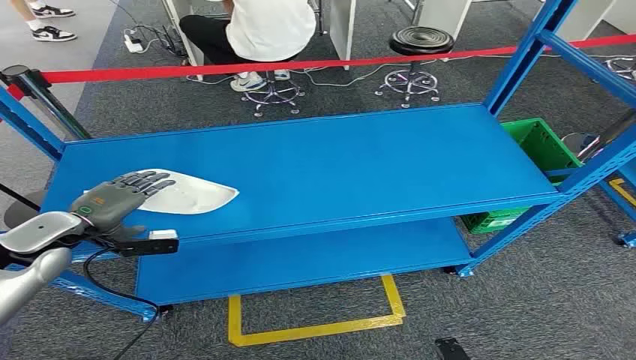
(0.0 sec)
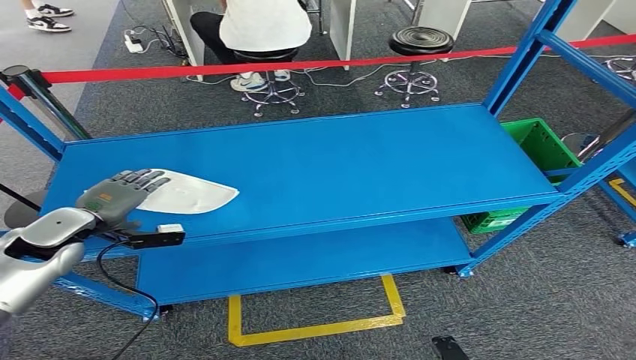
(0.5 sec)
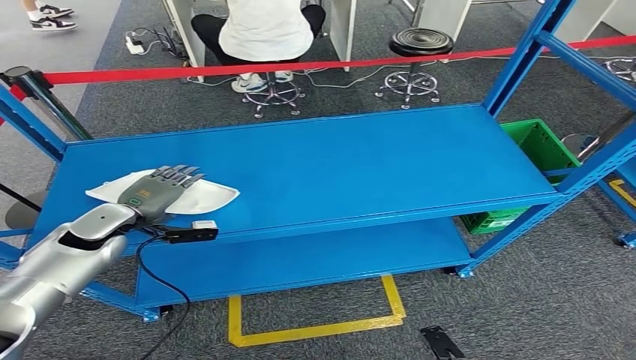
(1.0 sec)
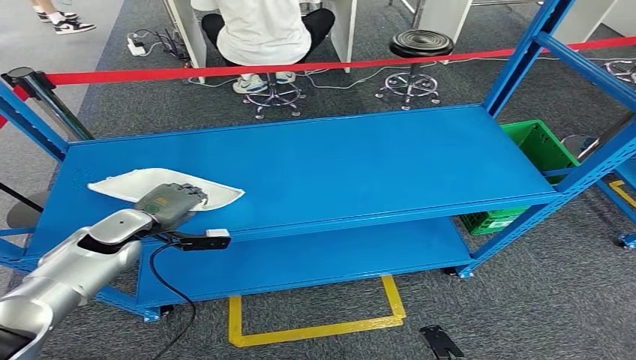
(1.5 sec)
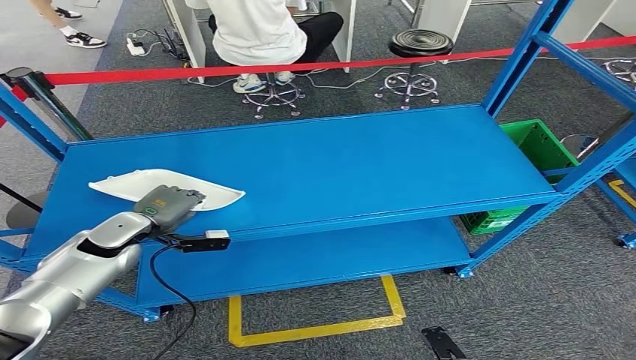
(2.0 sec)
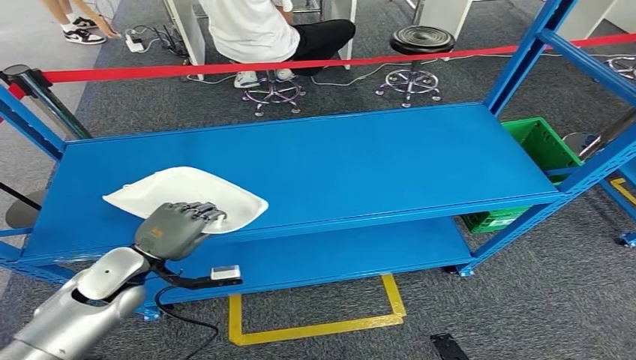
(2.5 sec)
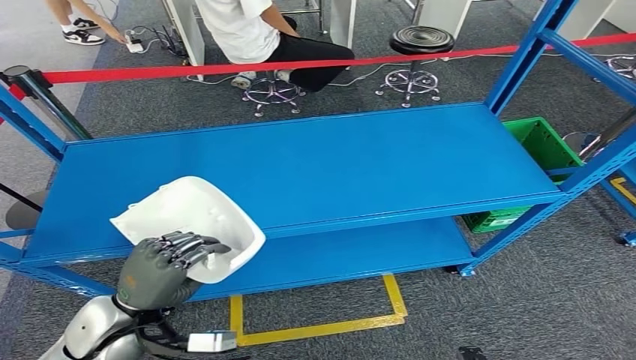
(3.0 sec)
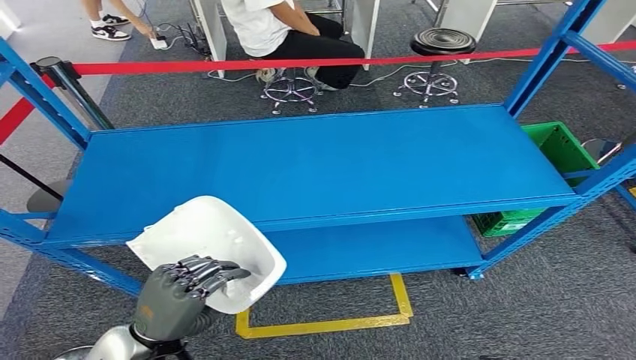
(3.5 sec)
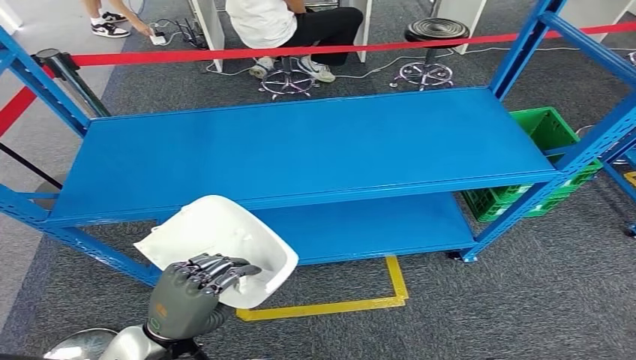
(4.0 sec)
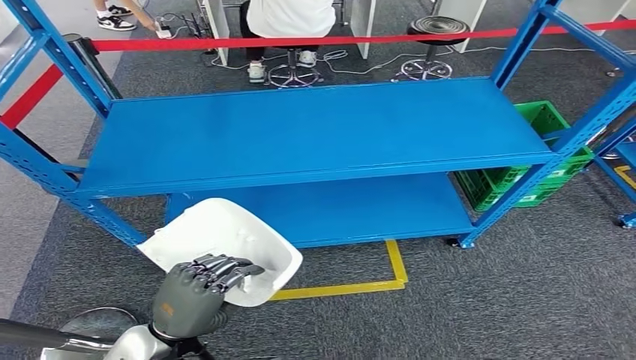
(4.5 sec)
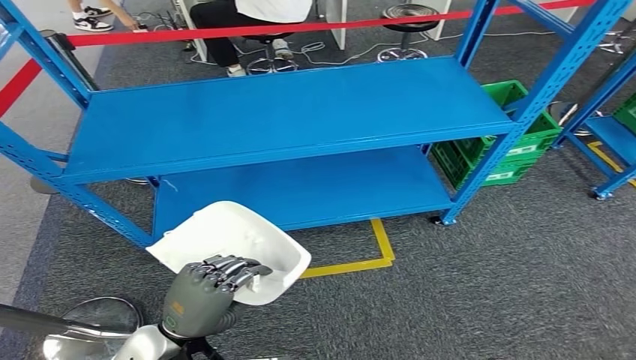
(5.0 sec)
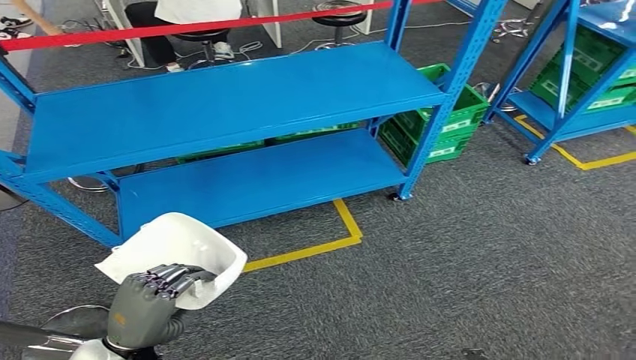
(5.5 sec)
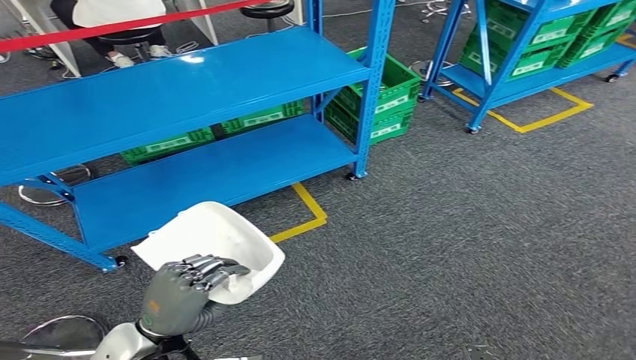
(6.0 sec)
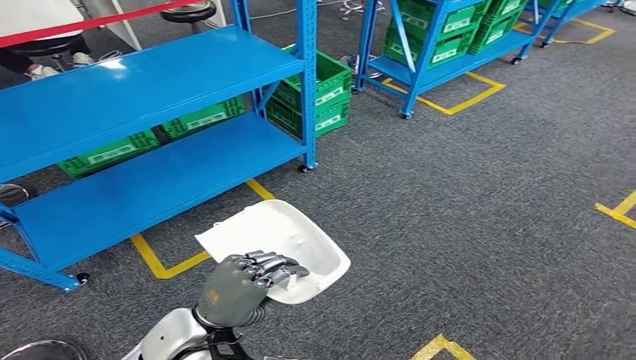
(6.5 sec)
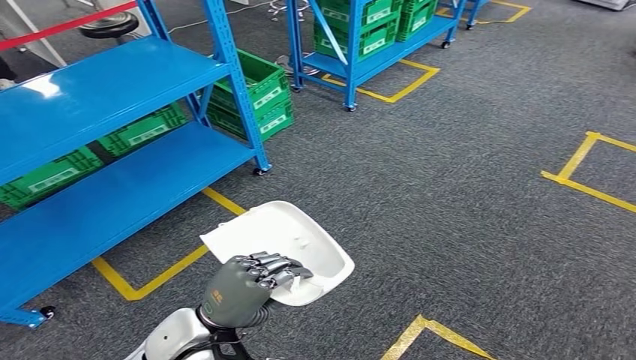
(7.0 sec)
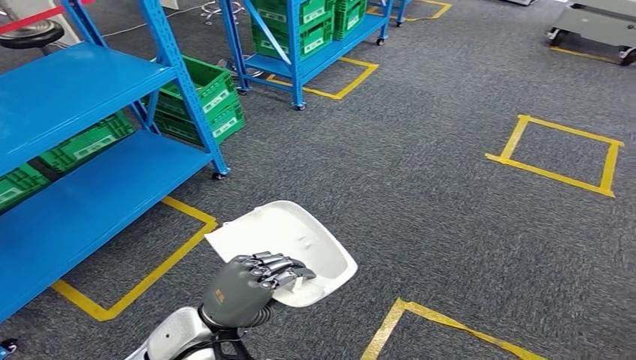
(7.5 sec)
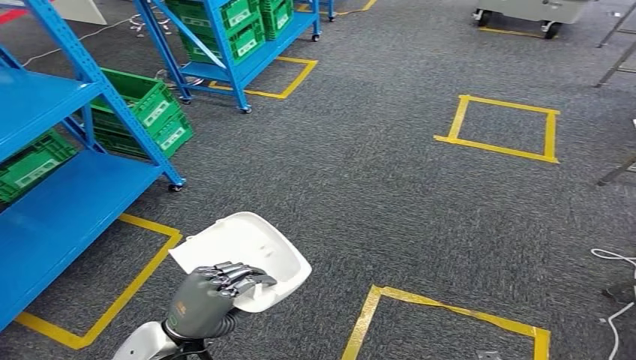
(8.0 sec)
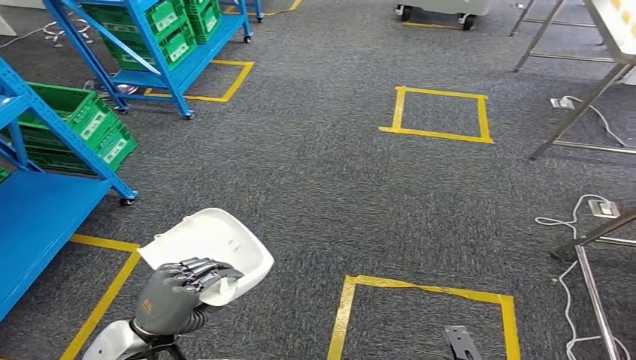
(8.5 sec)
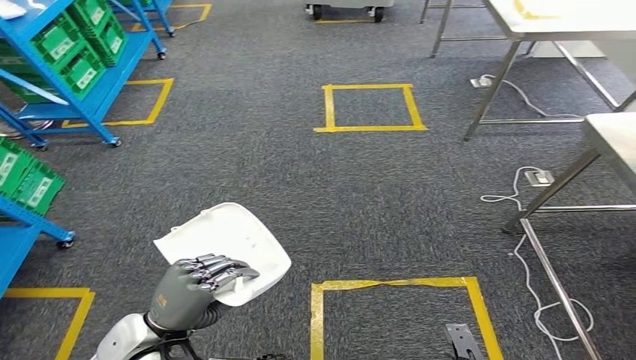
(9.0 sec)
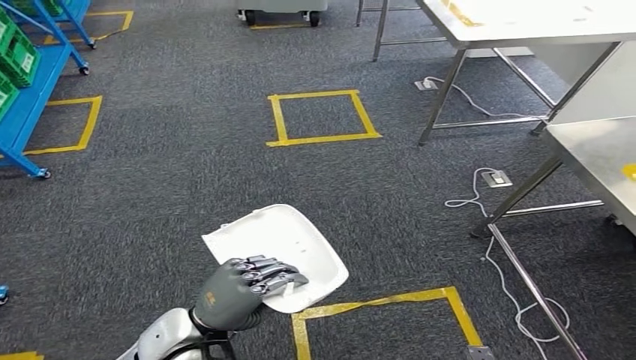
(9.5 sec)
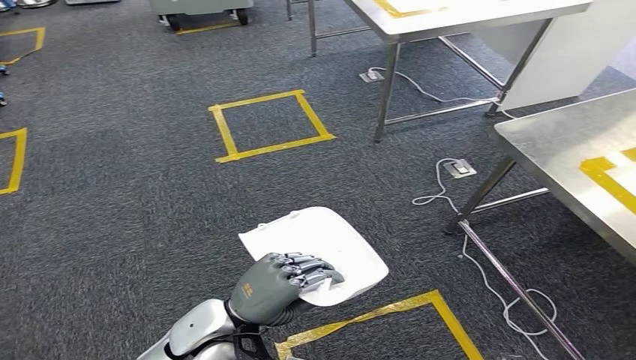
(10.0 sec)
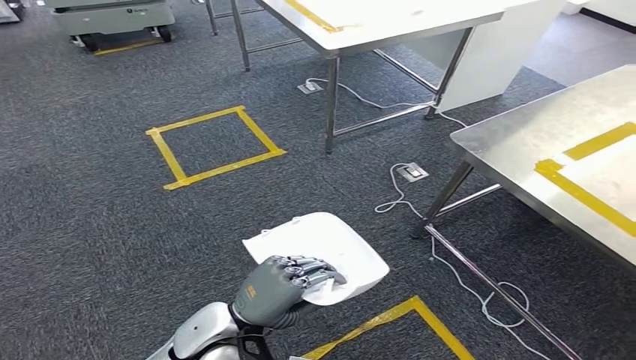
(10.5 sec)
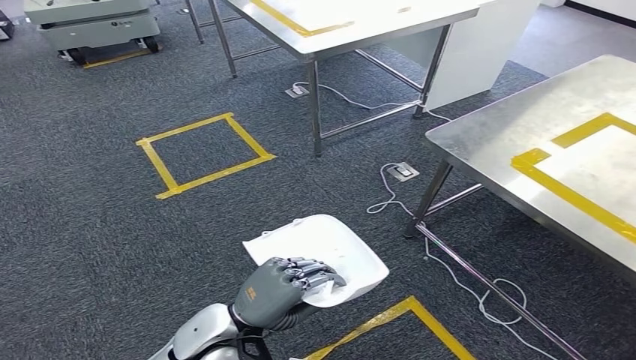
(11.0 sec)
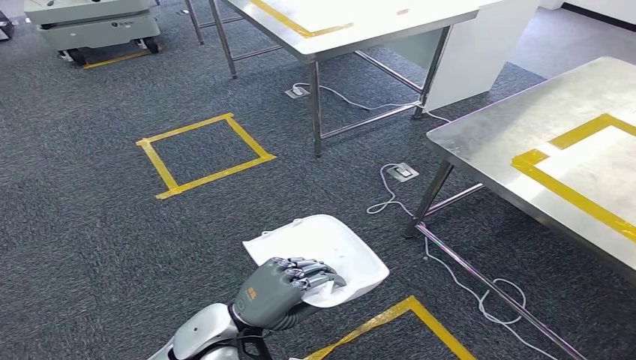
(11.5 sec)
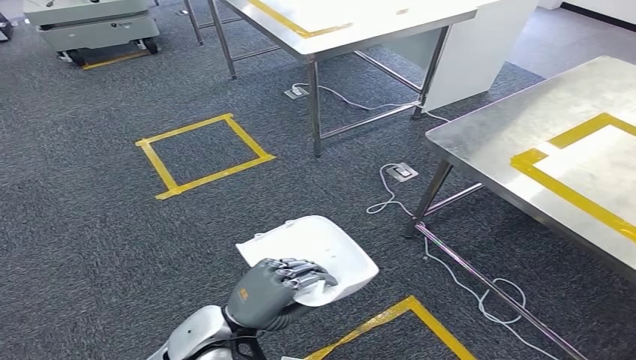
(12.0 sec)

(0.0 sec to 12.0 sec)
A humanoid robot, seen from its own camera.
Step, 0.0 sec - 4.0 sec: Pick up the small parts from the shelf.

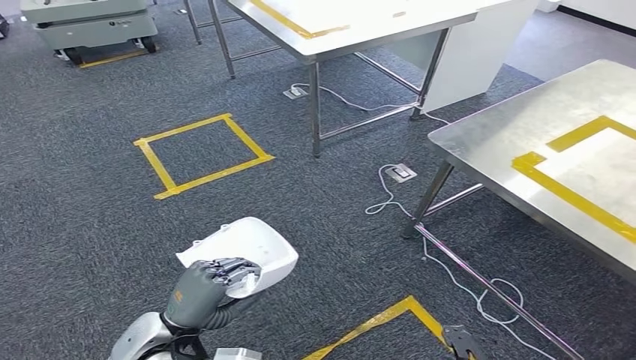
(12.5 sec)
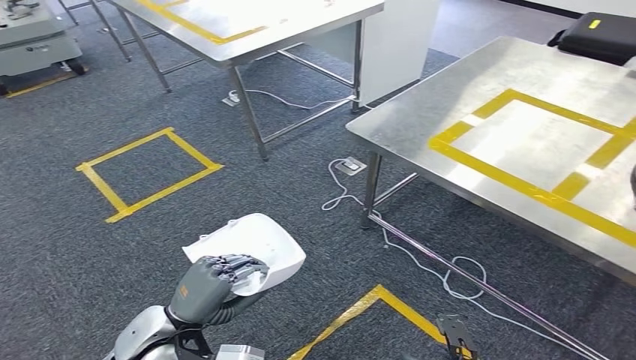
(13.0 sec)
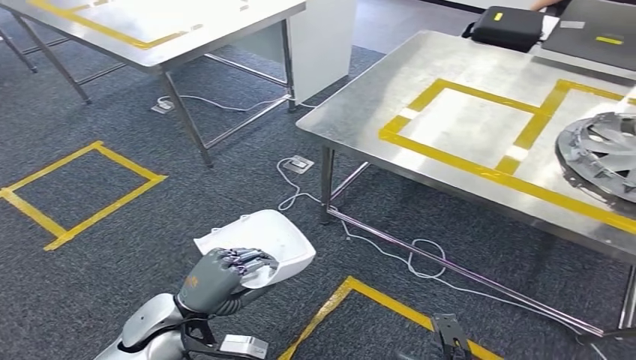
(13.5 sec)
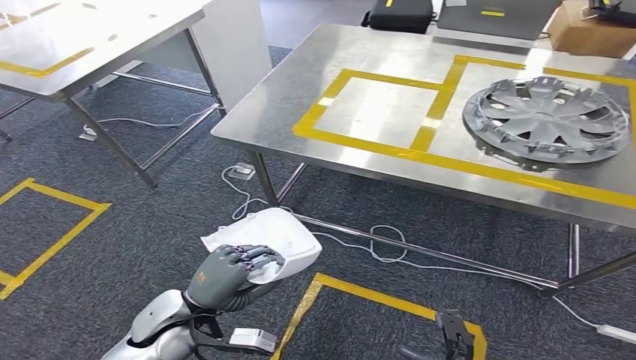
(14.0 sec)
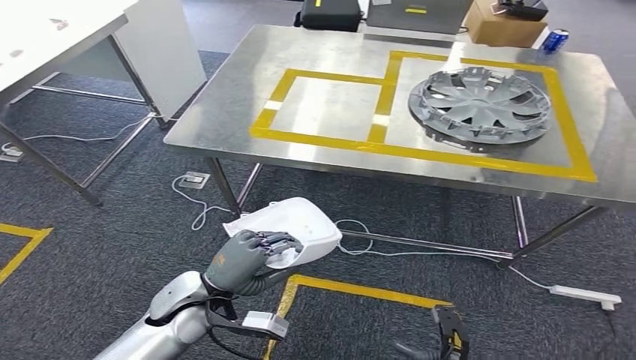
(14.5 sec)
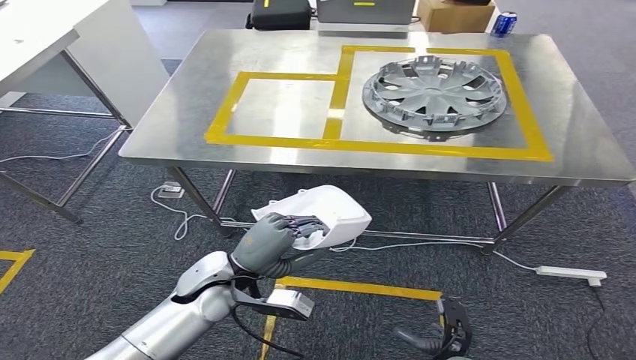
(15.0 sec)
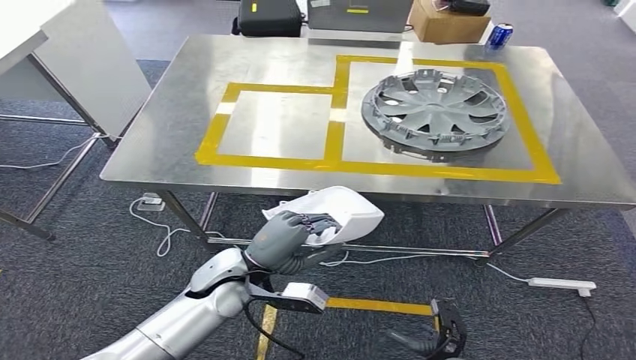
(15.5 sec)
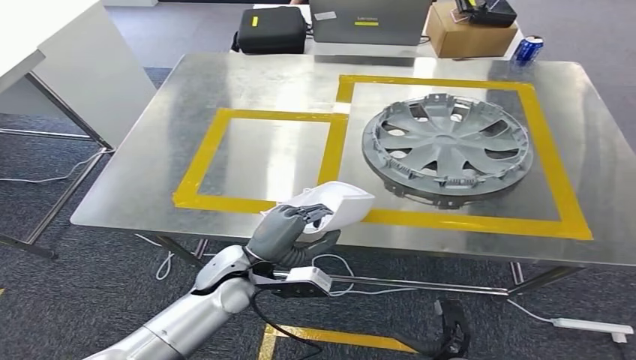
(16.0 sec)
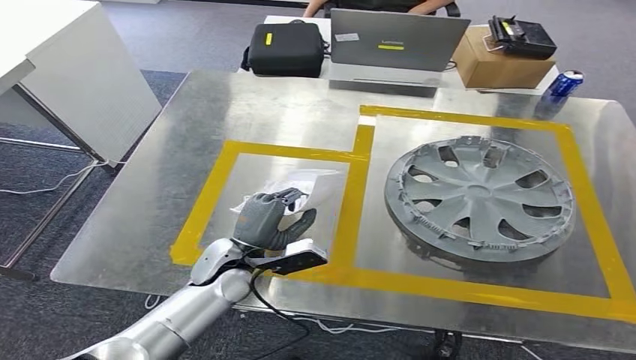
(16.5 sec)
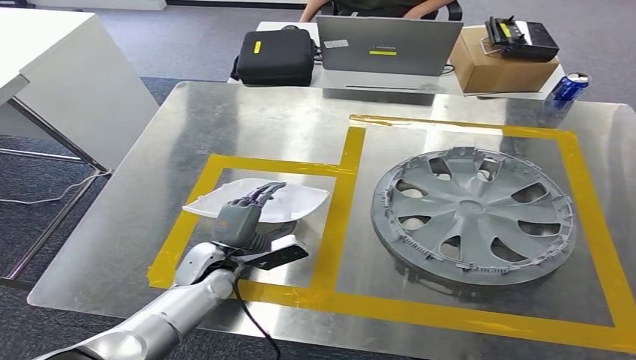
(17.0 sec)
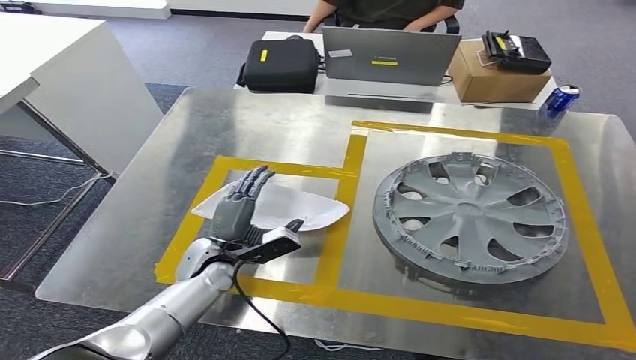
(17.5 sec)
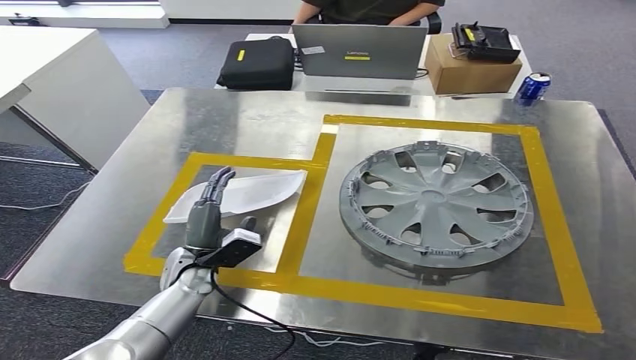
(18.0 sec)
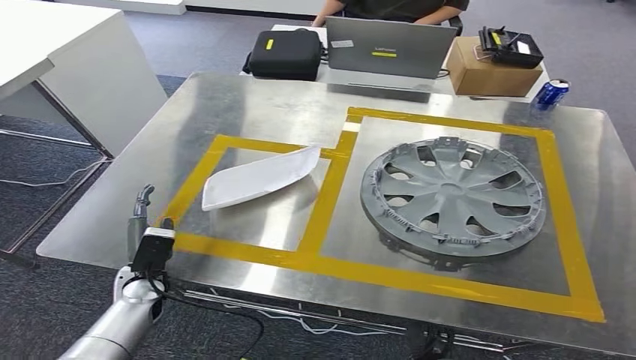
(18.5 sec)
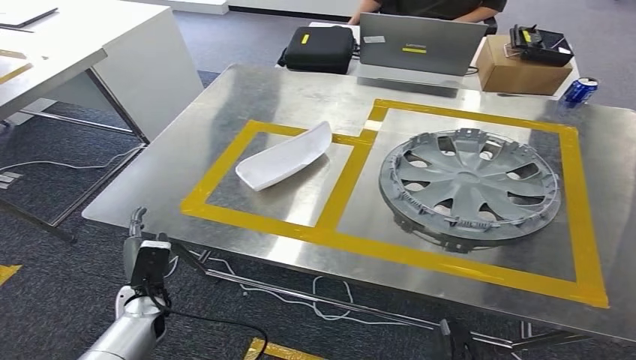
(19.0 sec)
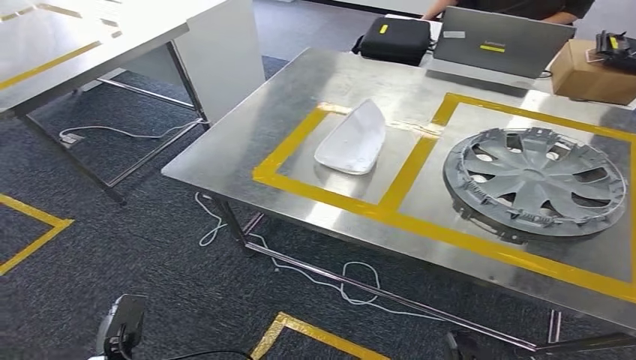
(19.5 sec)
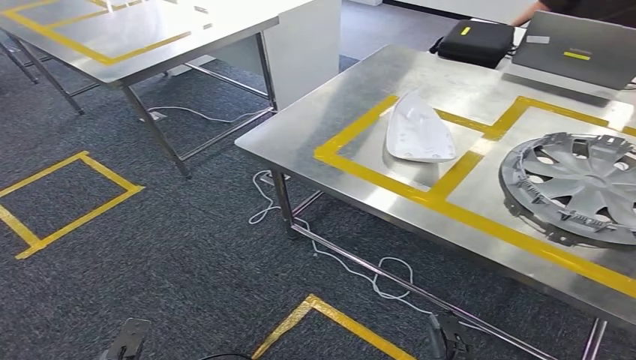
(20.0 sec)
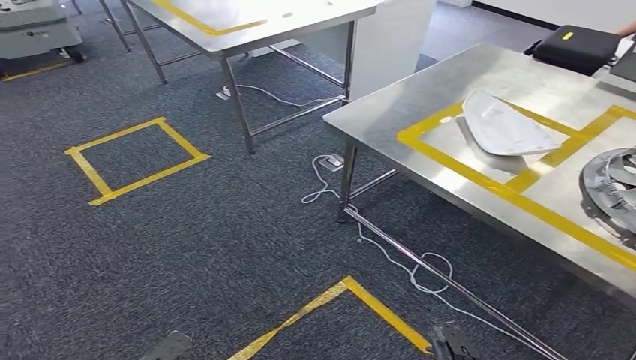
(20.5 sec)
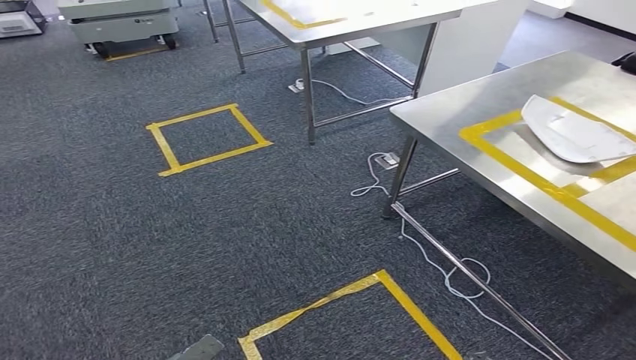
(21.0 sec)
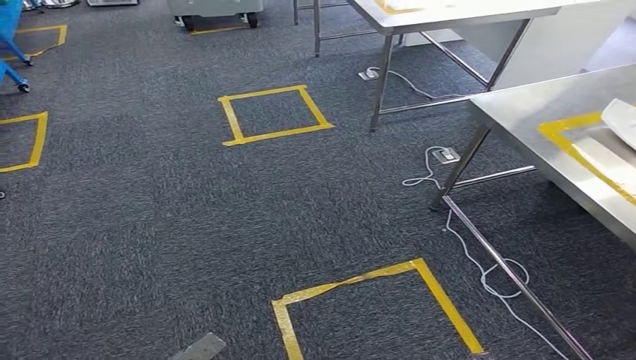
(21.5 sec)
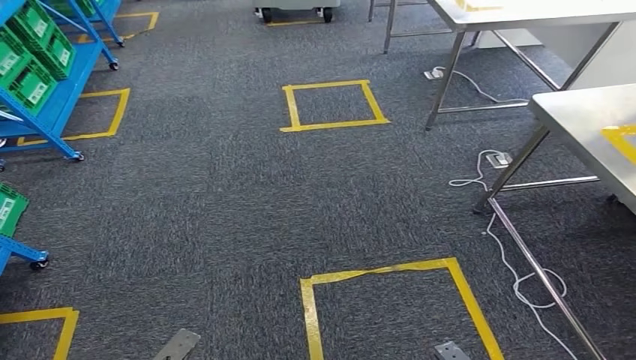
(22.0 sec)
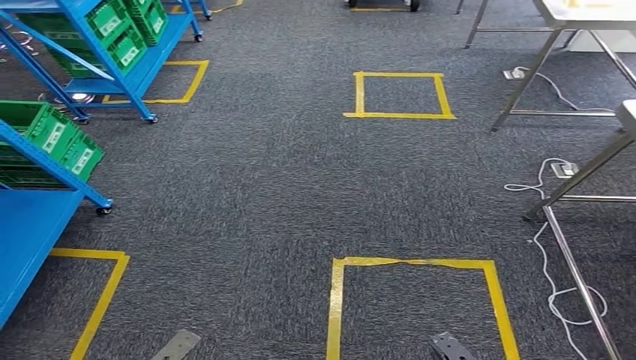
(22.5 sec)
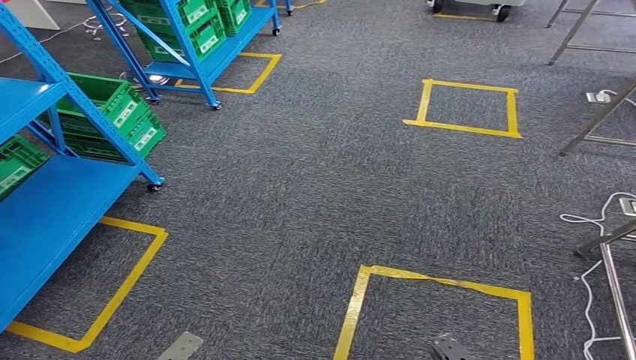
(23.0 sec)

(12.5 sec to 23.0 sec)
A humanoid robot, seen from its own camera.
Step, 12.5 sec - 14.5 sec: Move the small parts to the workbench.
Step, 15.0 sec - 19.0 sec: Insert the small parts into the corresponding slots on the workbench.
